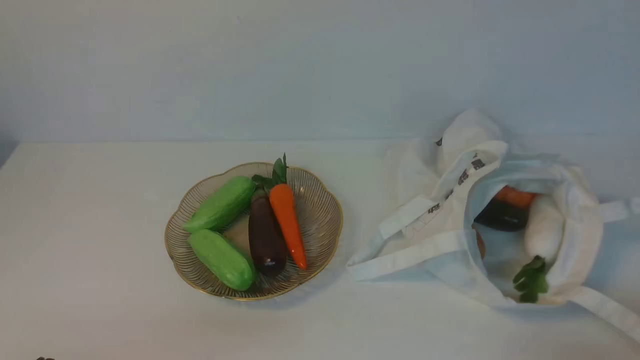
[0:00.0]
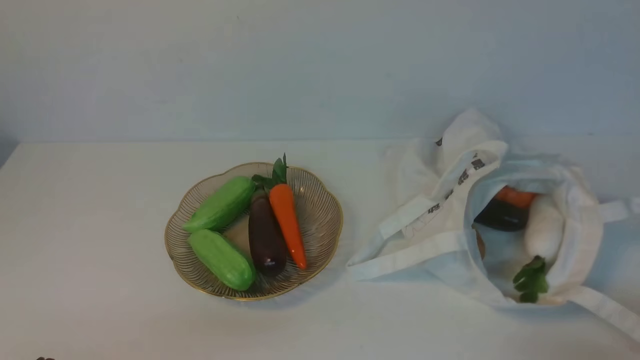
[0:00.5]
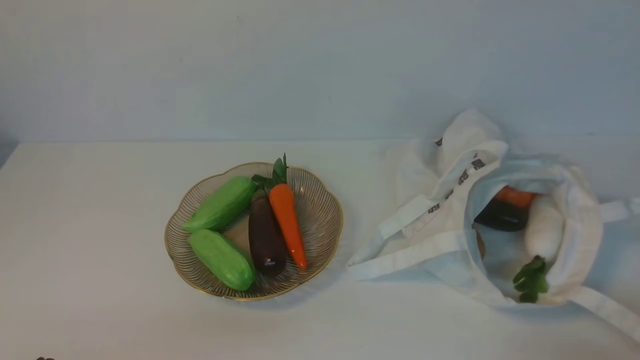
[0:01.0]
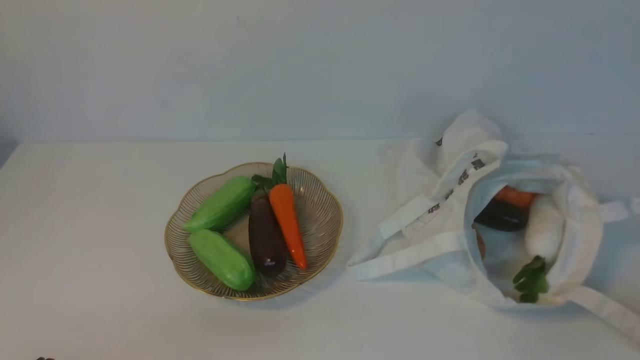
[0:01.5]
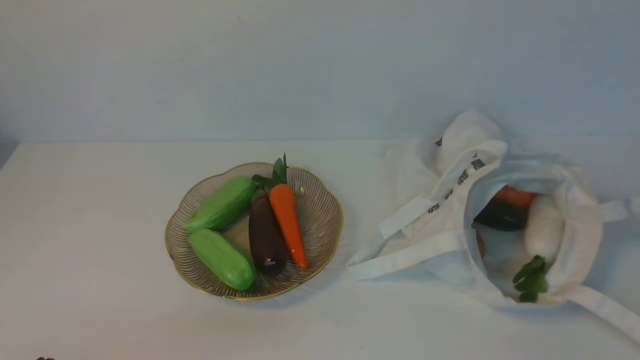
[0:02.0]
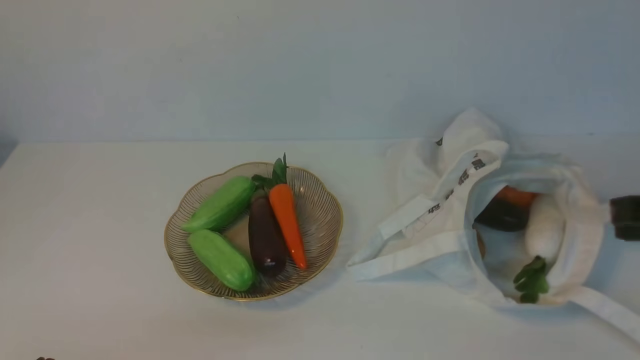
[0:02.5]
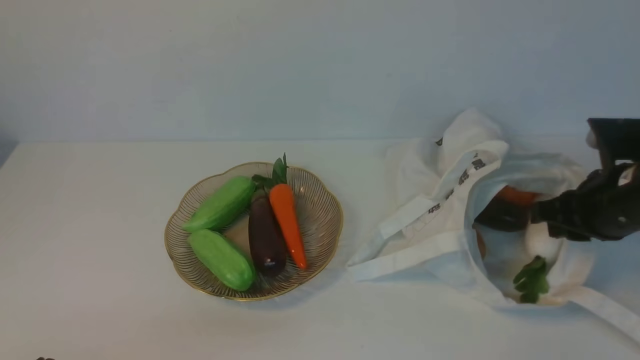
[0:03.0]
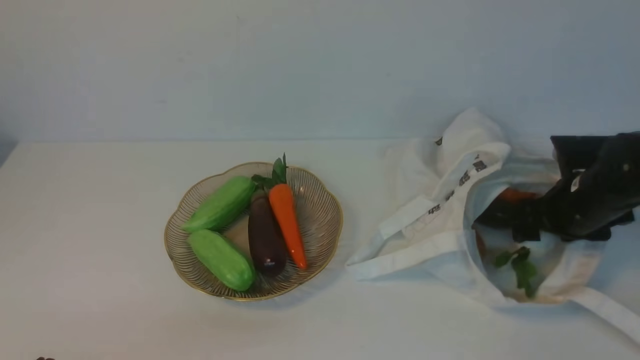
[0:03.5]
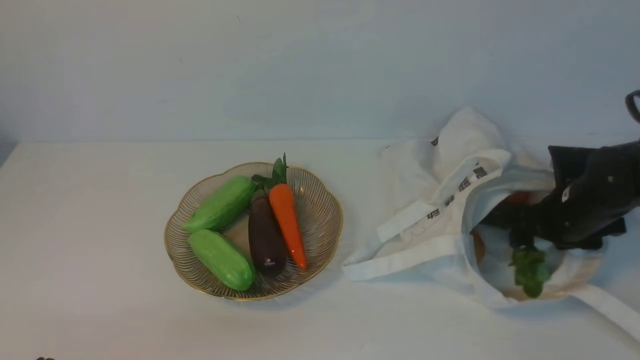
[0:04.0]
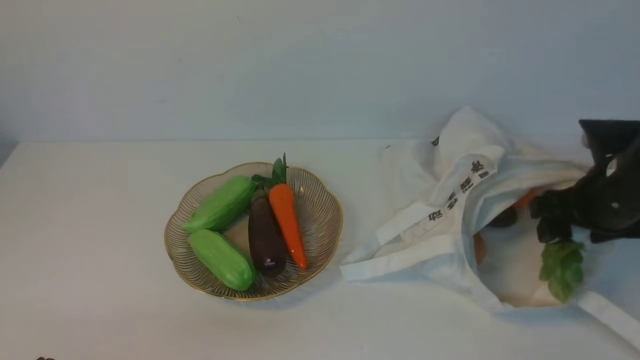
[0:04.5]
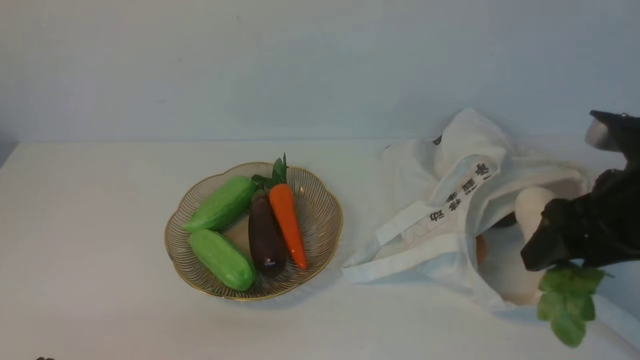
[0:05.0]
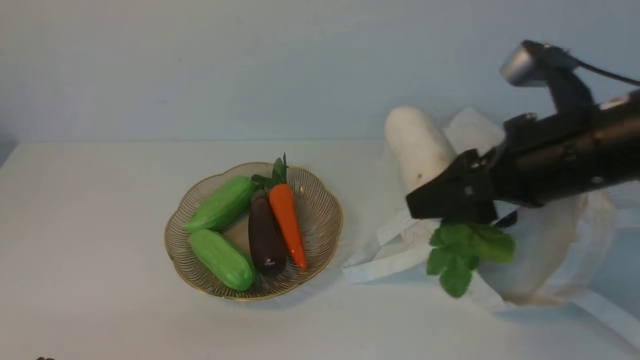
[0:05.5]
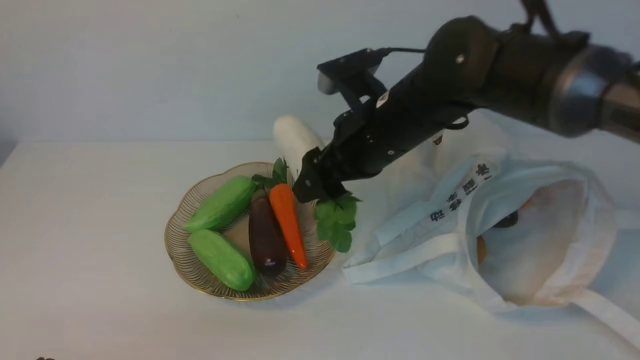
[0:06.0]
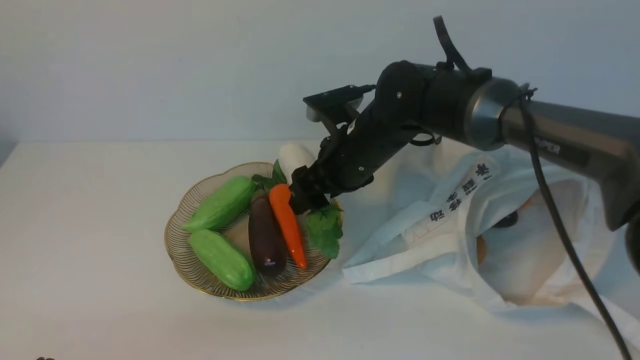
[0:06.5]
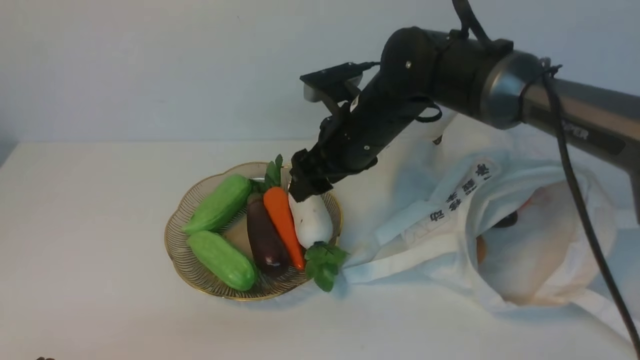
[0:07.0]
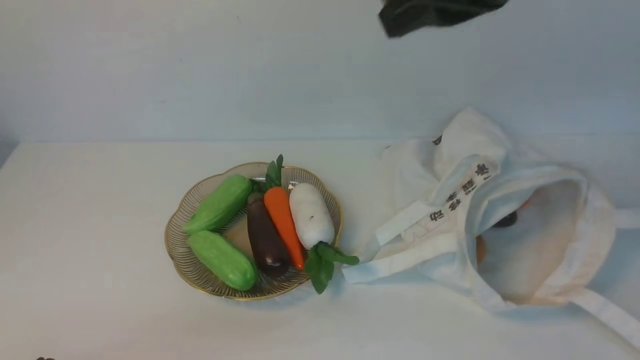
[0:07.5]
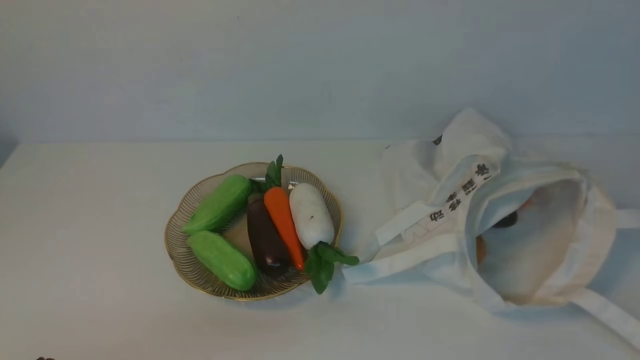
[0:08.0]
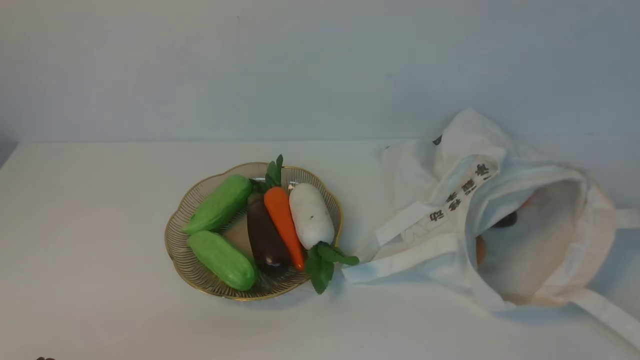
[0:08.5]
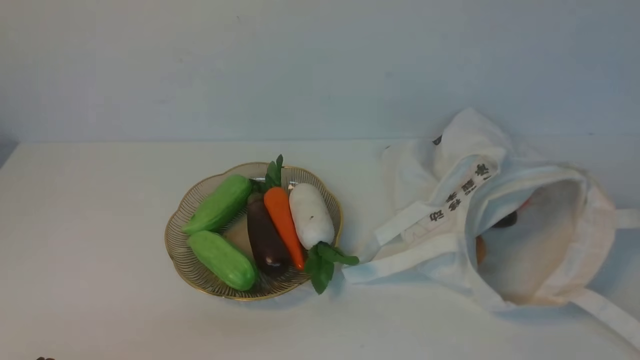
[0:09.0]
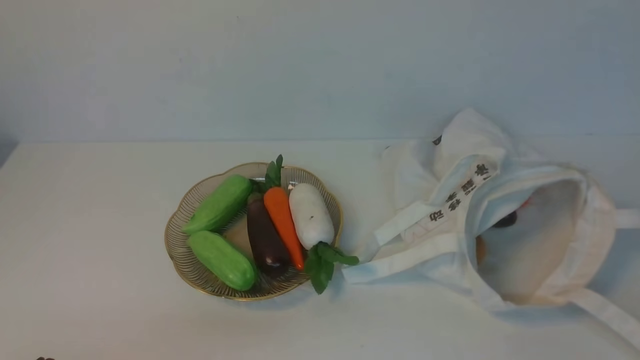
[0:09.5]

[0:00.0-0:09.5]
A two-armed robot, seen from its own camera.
Task of the whole recording: take vegetables from cloth bag on white table place on plate.
Step, 0:00.0 to 0:03.5: Grasp the radish with right gripper.
Step, 0:04.5 to 0:07.0: Place the radish on the plate with right gripper.
0:02.0 to 0:04.0: The right gripper heads forward and downward, covering about 35 cm, and opens.
0:04.0 to 0:05.5: The right gripper goes about 25 cm upward, to the left and backward.
0:05.5 to 0:07.5: The right gripper travels upward by some 15 cm, and closes up.
0:07.5 to 0:09.5: The right gripper heads downward, backward and to the right, covering roughly 35 cm.

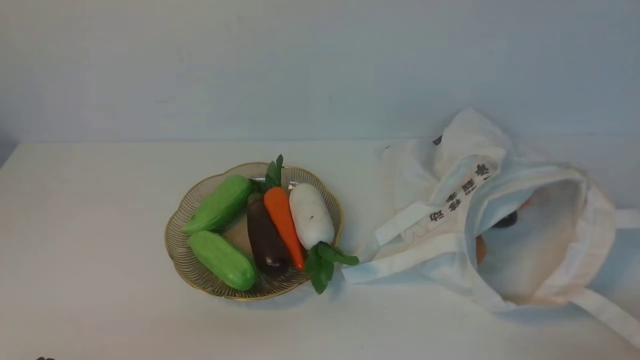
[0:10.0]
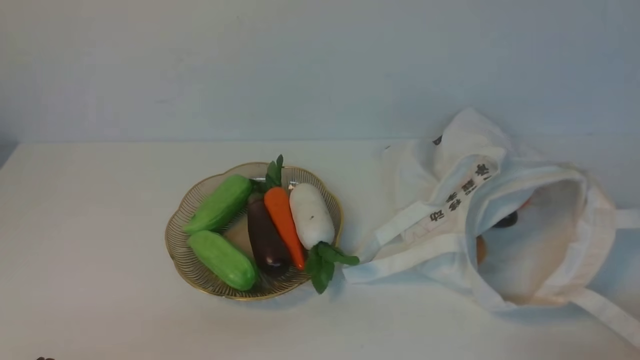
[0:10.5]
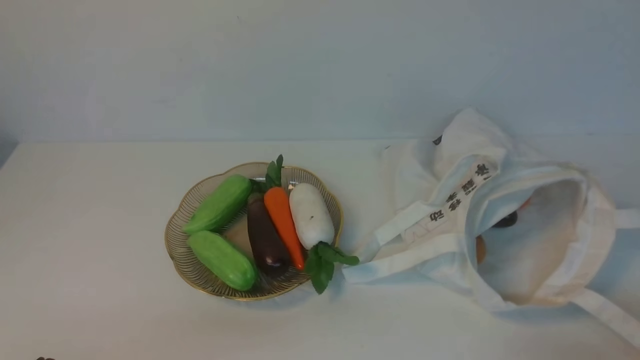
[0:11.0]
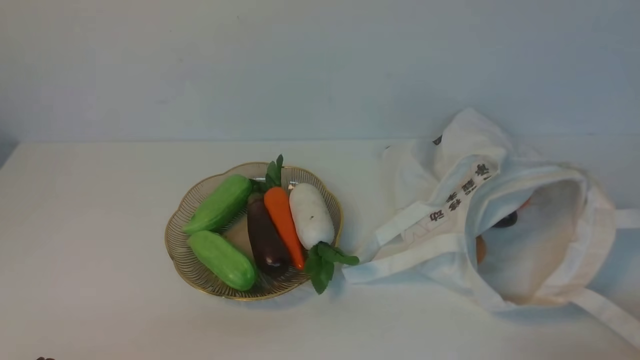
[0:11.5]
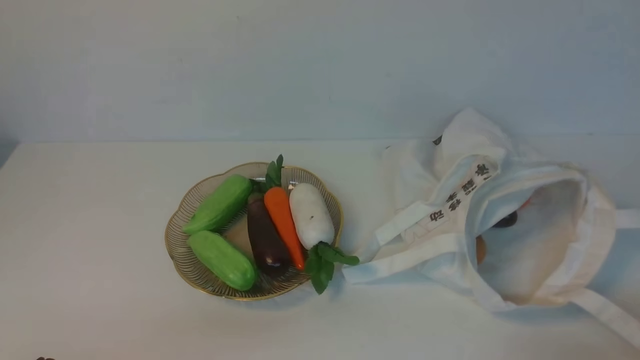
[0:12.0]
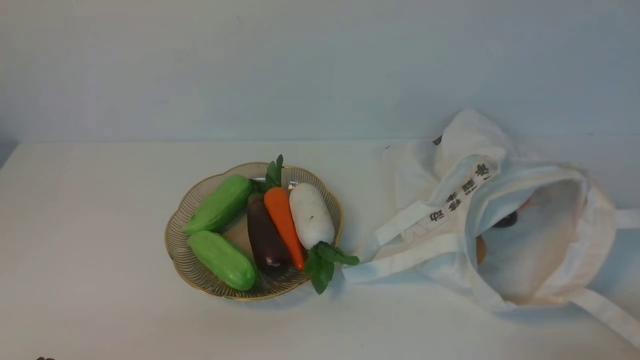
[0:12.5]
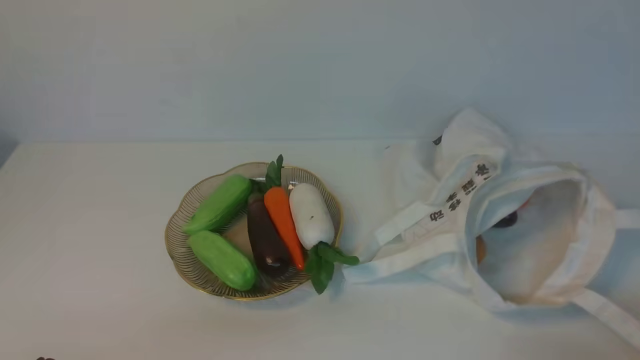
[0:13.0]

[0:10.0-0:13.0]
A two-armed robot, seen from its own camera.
Task of the whole recording: take vegetables from cloth bag on white table place on plate.
0:10.0 to 0:13.0: The two grippers keep their place.
